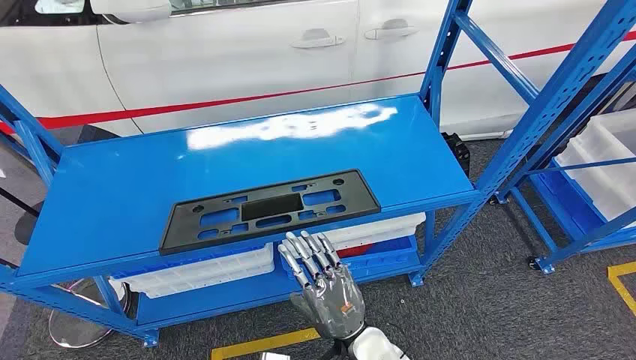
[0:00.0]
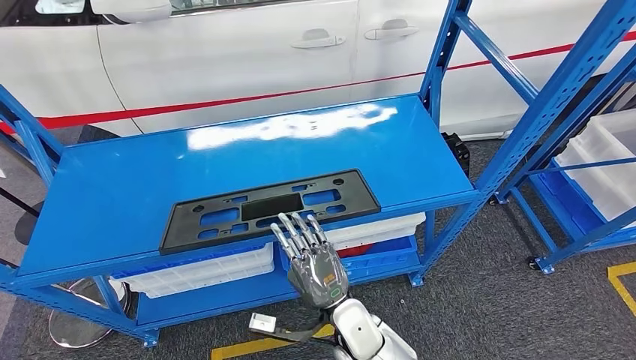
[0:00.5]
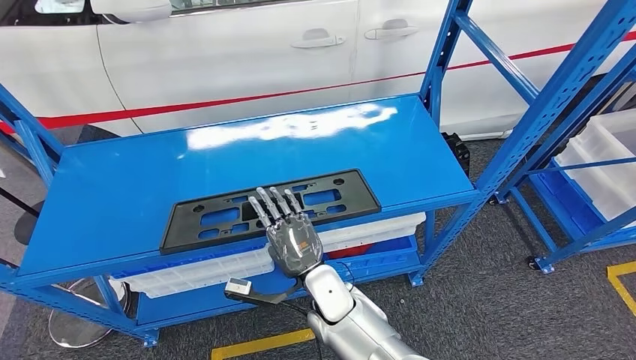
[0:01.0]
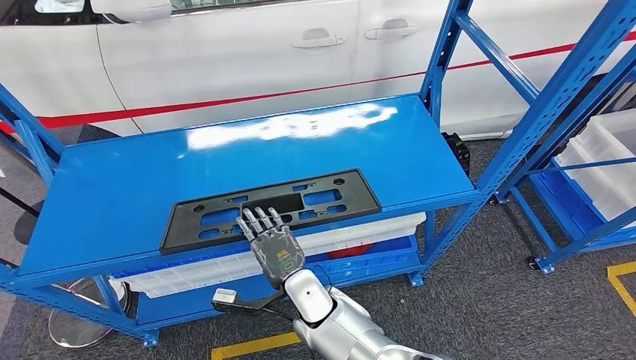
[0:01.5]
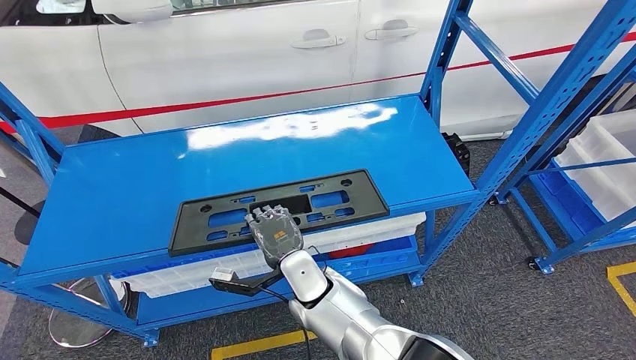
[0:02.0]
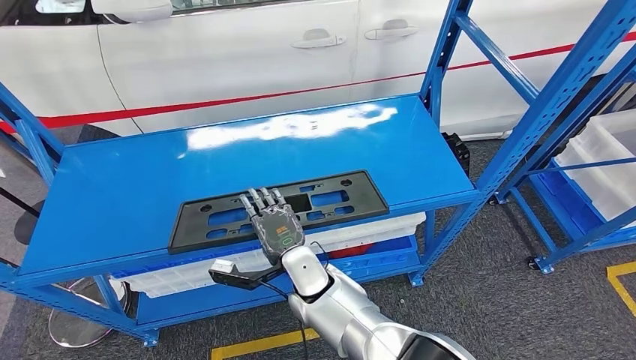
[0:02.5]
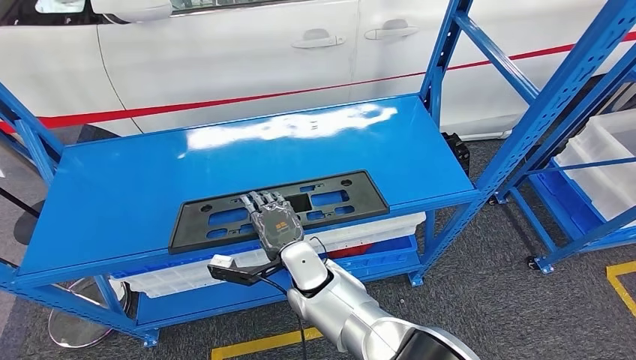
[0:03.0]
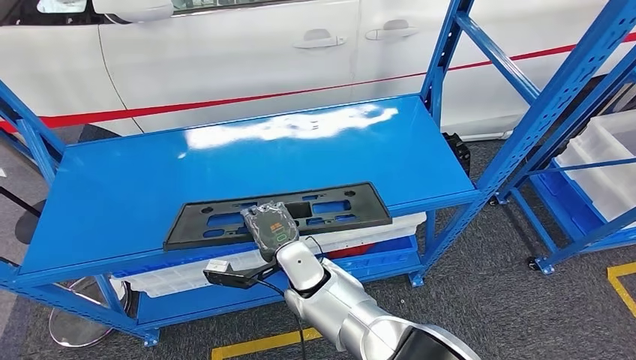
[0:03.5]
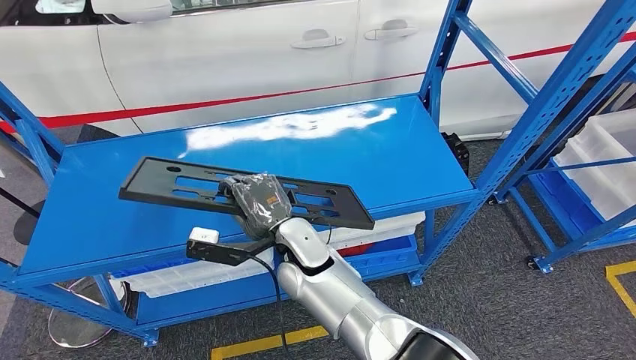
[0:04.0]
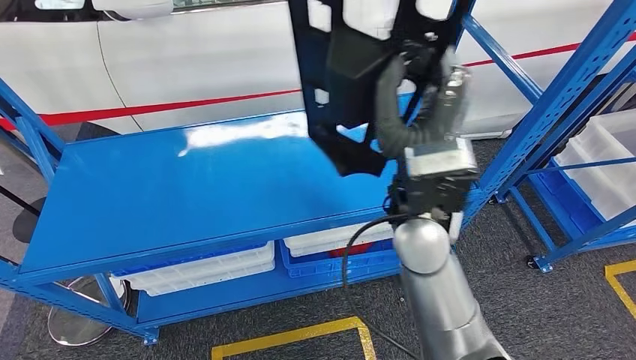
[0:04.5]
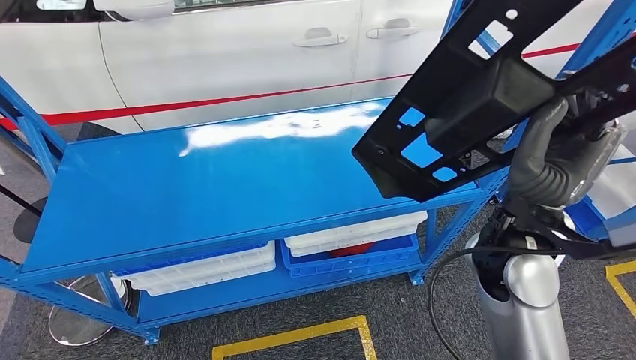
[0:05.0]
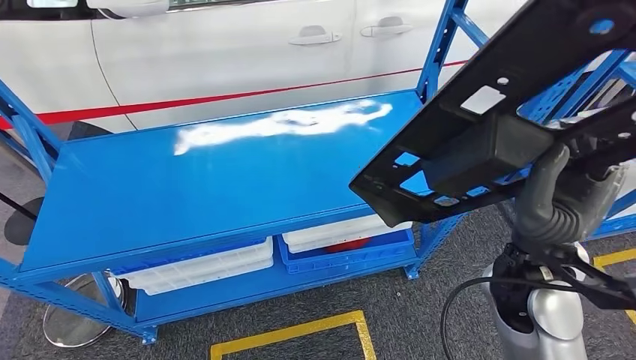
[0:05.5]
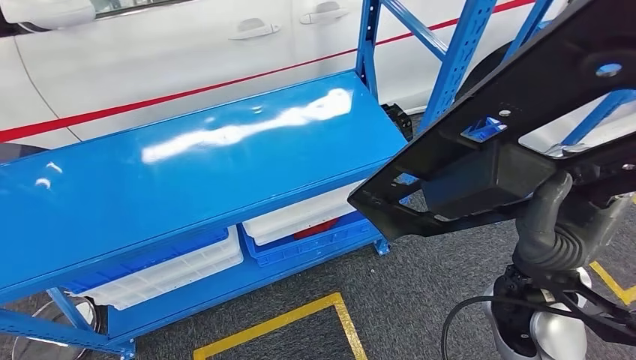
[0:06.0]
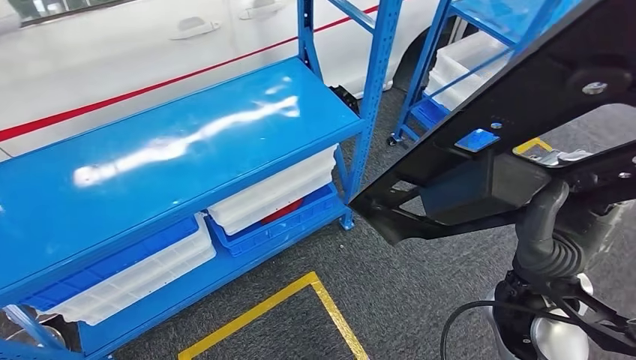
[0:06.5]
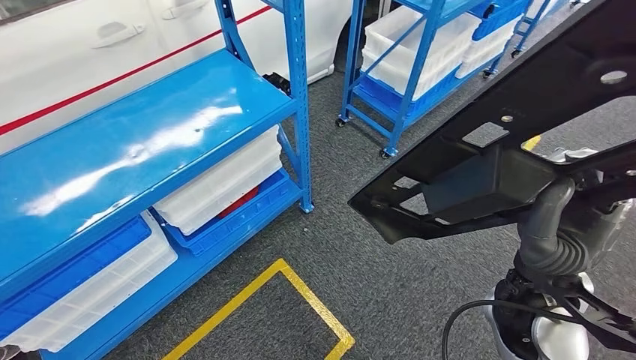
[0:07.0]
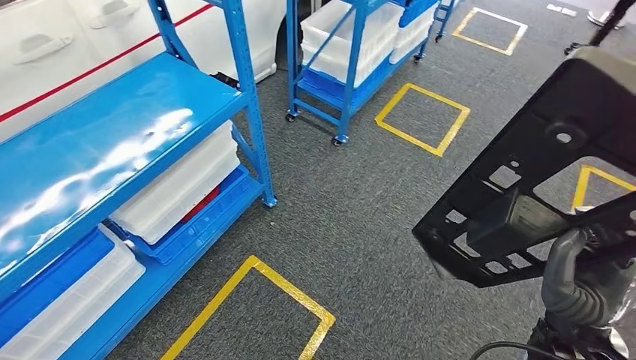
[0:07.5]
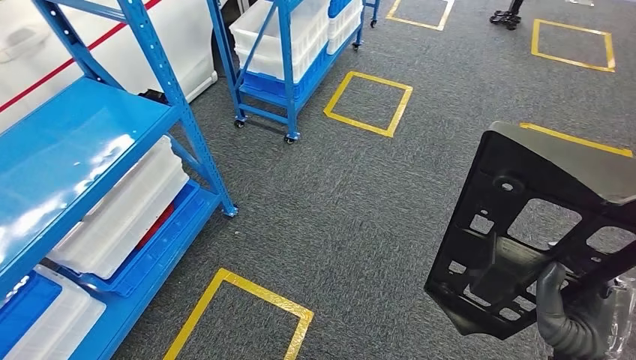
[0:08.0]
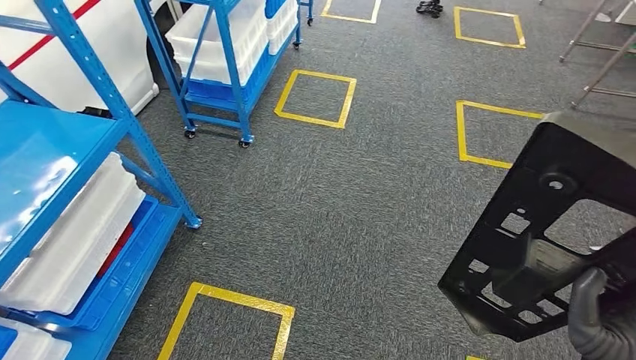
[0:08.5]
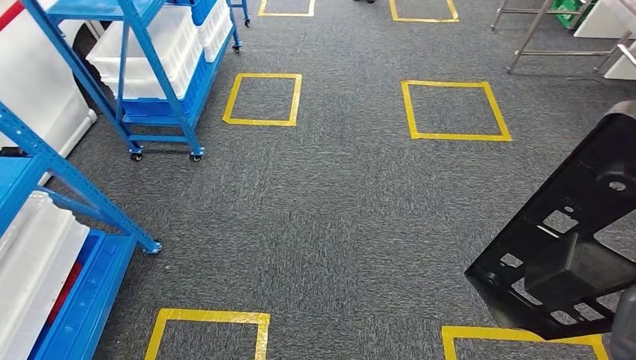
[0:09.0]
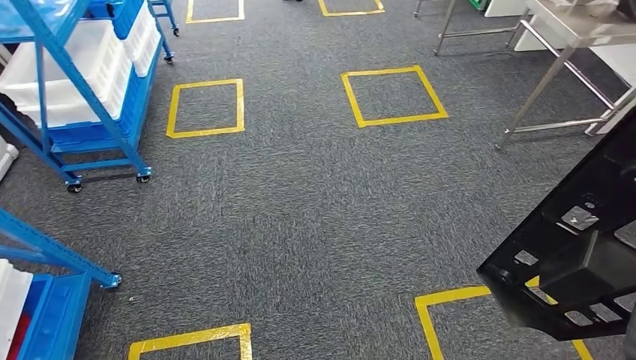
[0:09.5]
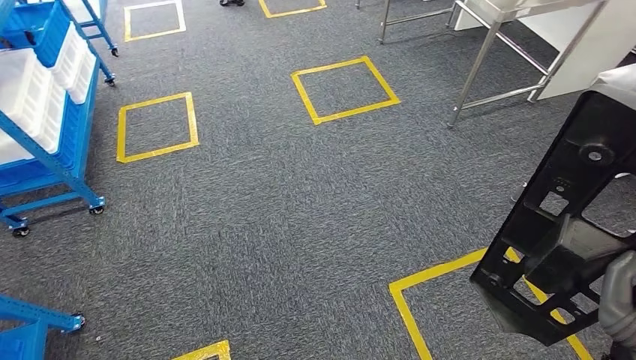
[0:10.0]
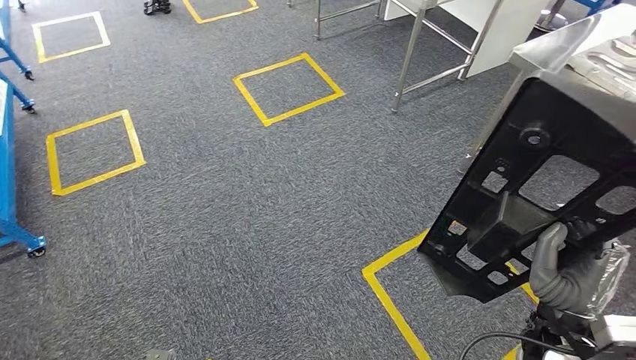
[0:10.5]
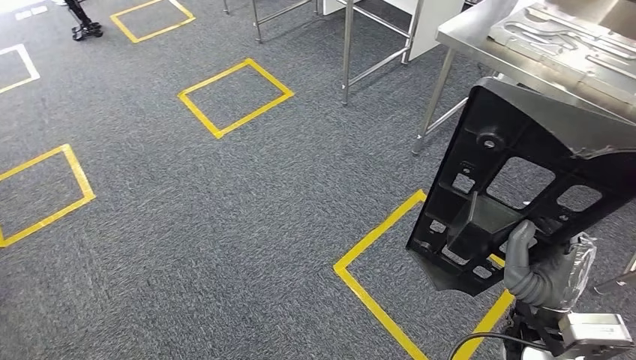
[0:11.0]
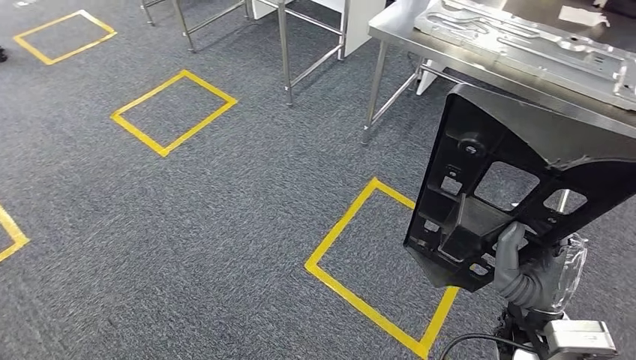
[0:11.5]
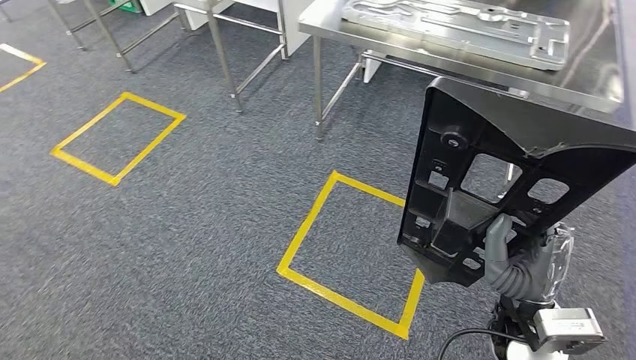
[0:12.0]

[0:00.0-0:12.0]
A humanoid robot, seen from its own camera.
Step, 0:00.0 to 0:05.0: Pick up the large material from the shelf.
0:02.0 to 0:04.0: The right hand moves upward, approximately 5 cm.

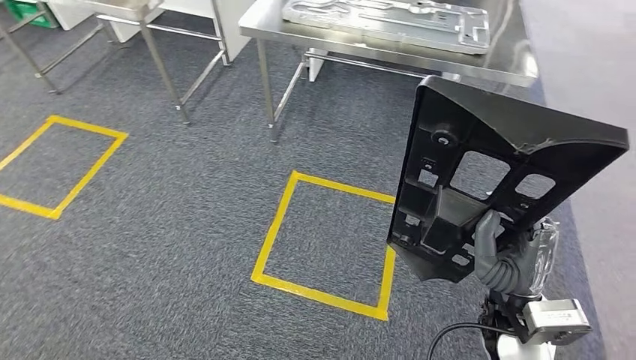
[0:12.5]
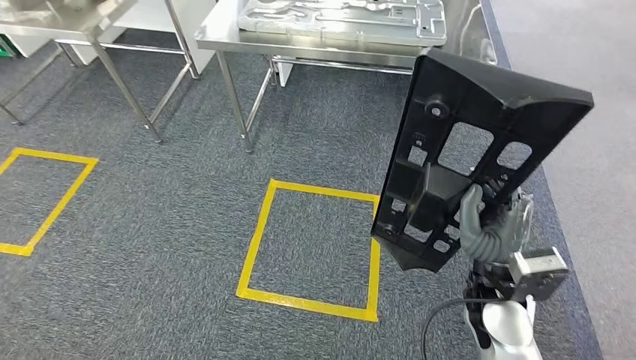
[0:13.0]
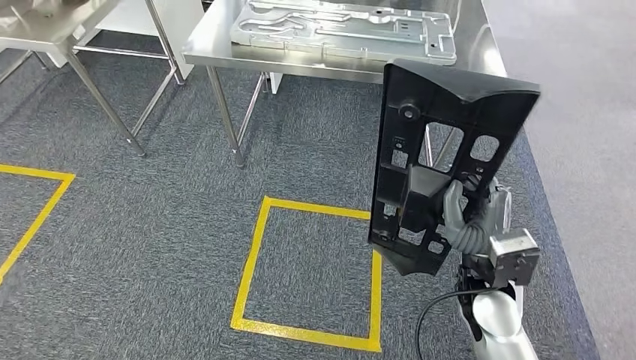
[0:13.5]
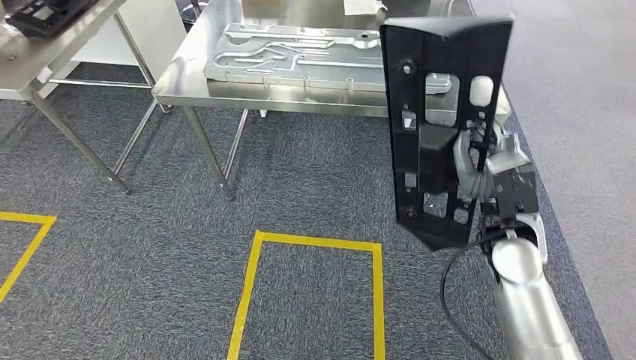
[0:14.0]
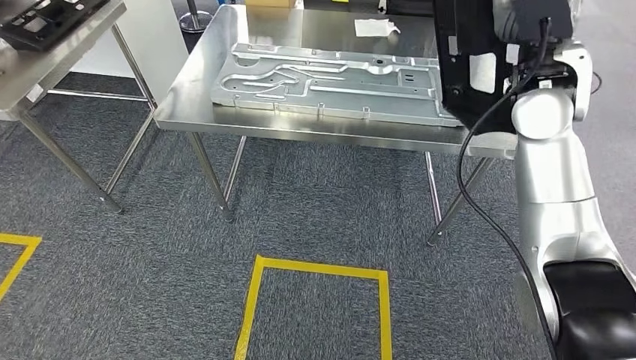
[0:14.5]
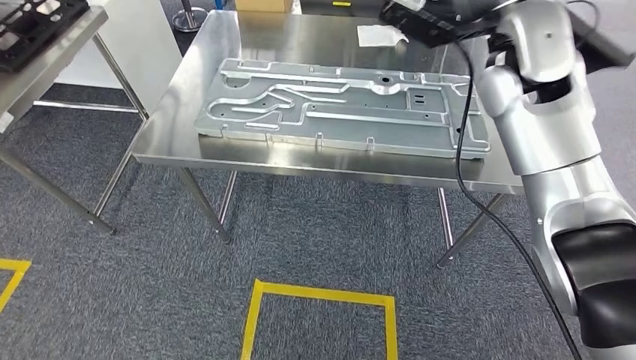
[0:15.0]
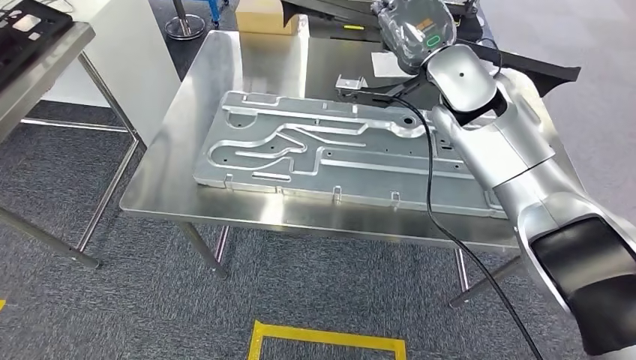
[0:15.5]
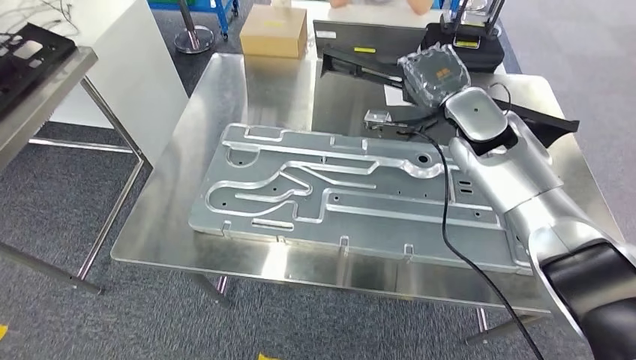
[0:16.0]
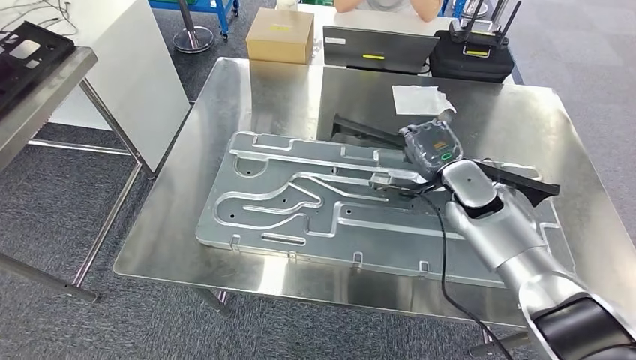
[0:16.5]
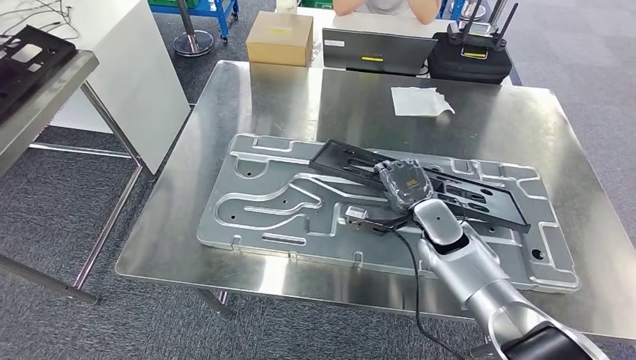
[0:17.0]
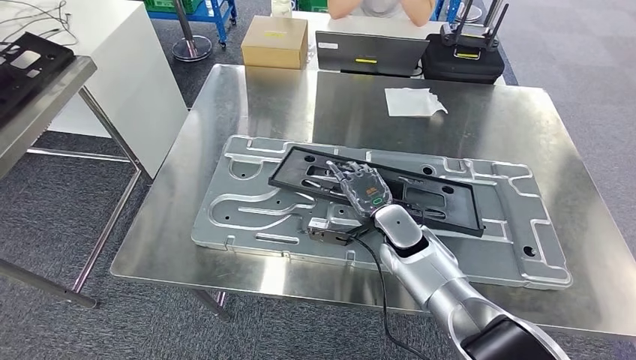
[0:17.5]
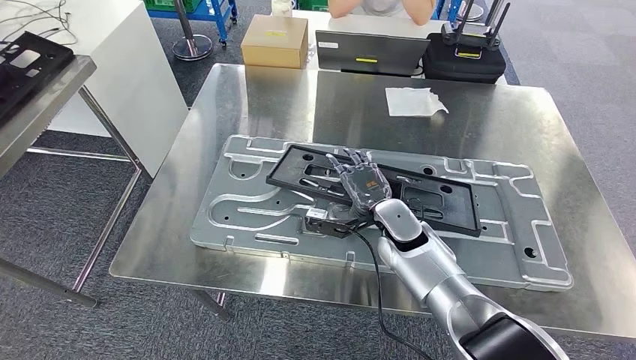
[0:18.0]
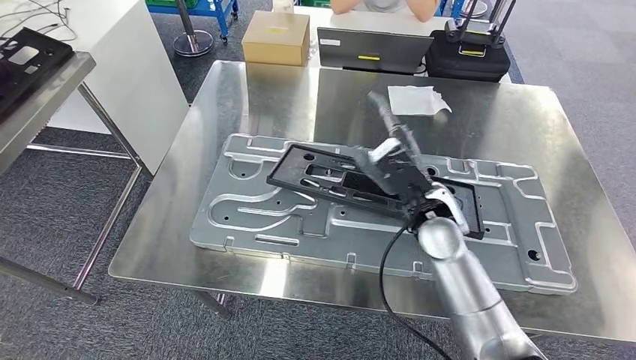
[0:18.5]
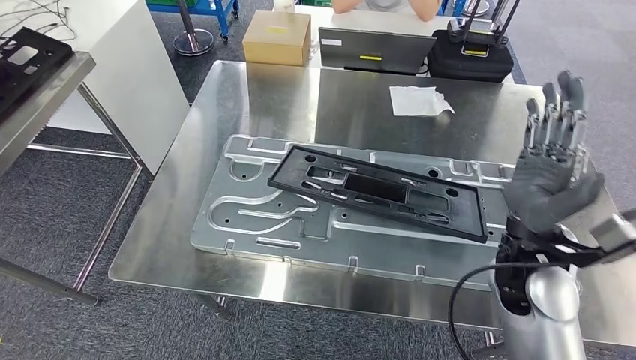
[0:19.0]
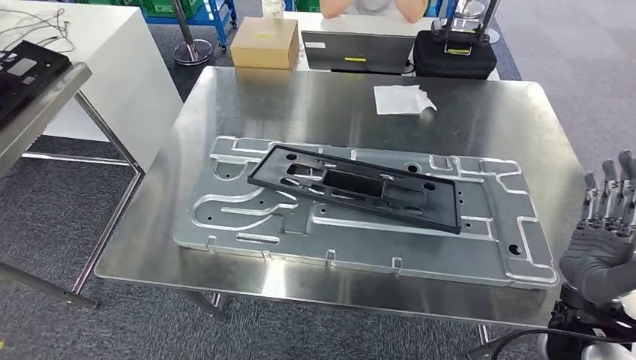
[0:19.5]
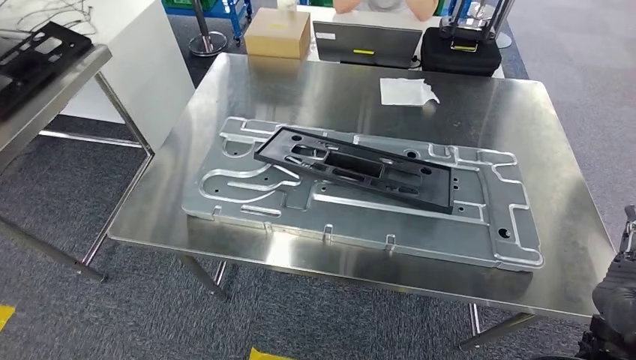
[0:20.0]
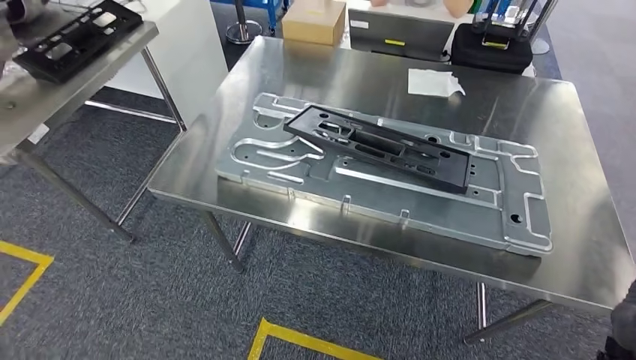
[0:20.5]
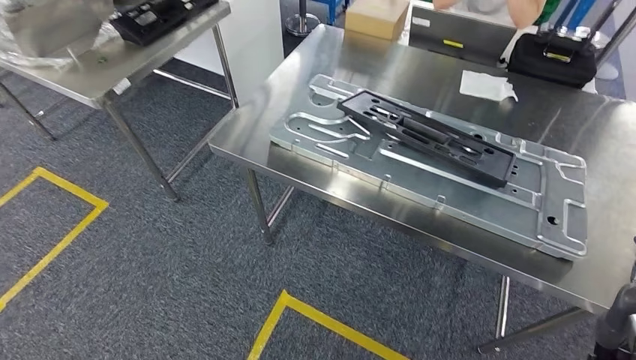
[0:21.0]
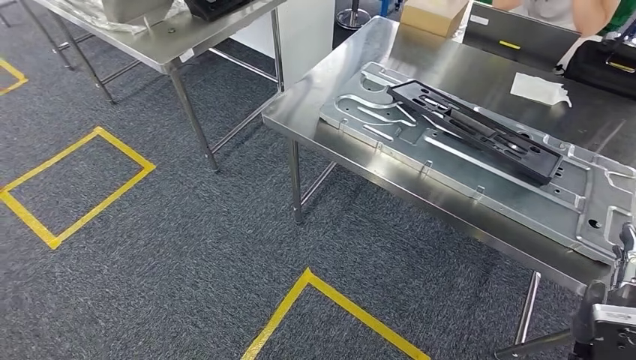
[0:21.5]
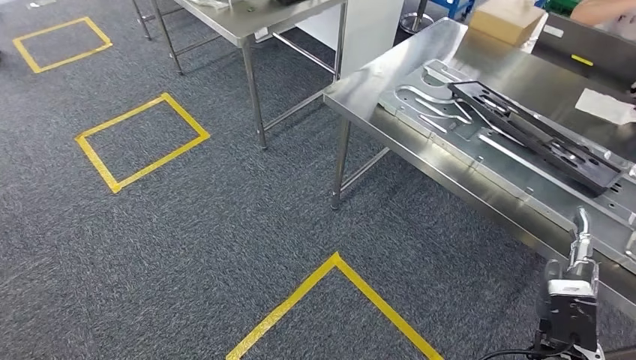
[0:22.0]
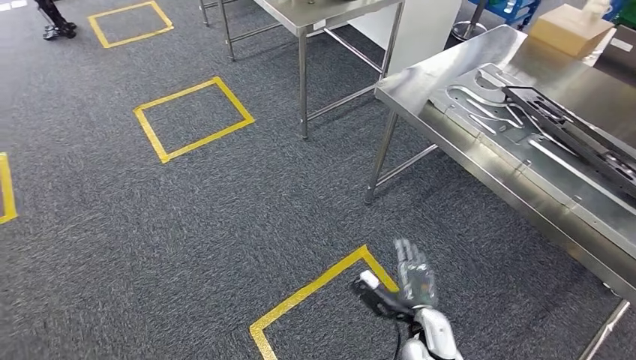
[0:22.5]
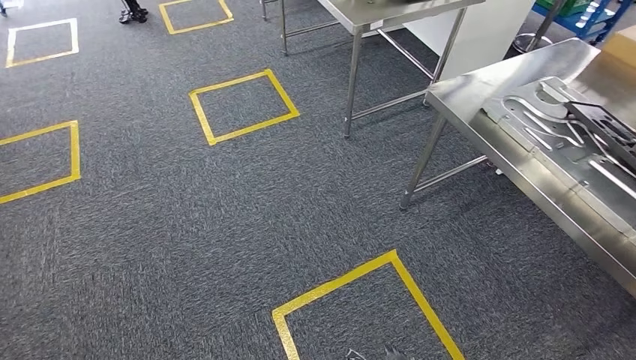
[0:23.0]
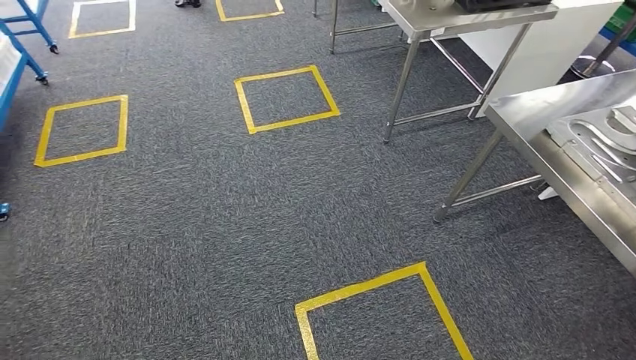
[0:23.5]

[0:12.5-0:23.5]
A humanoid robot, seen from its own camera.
Step, 0:12.5 to 0:15.0: Move the large material to the workbench.
Step, 0:16.5 to 0:21.0: Insert the large material into the corresponding slot on the workbench.
